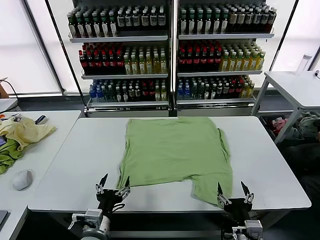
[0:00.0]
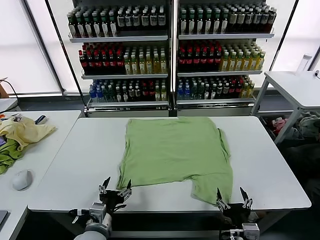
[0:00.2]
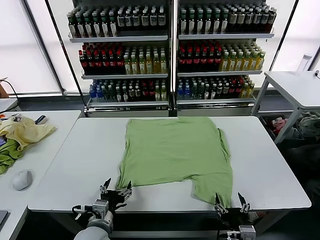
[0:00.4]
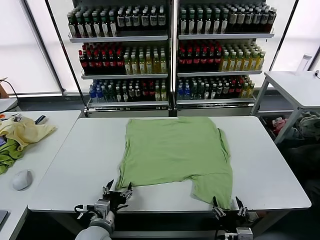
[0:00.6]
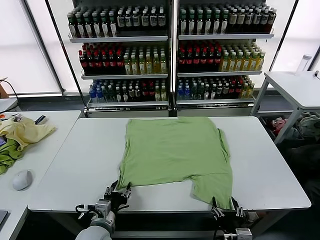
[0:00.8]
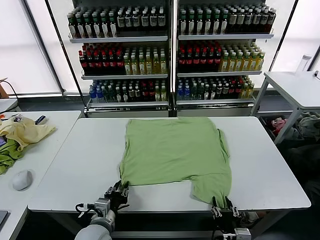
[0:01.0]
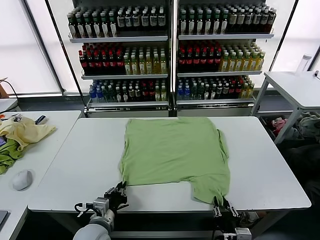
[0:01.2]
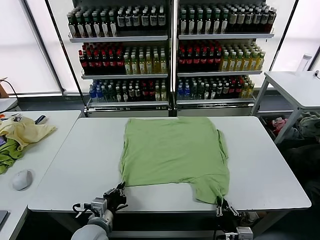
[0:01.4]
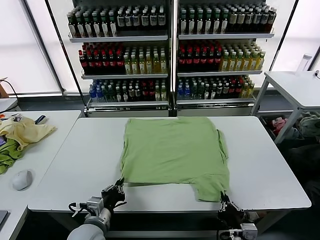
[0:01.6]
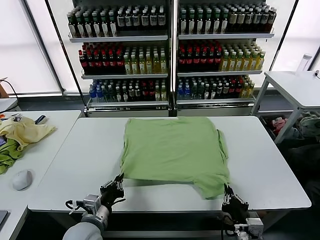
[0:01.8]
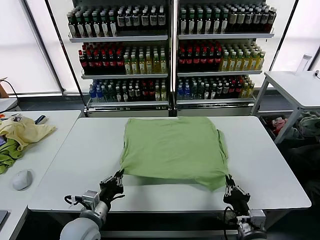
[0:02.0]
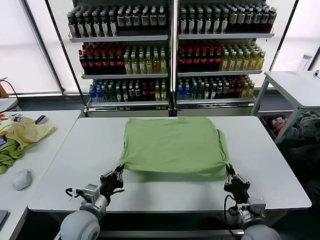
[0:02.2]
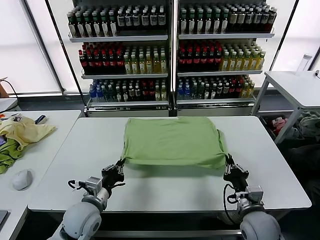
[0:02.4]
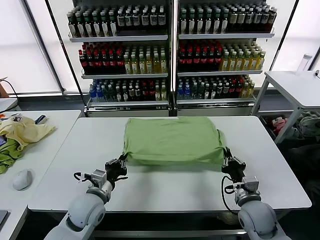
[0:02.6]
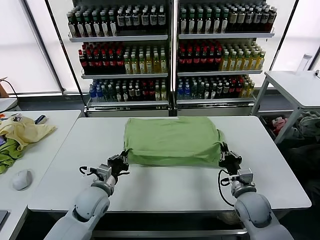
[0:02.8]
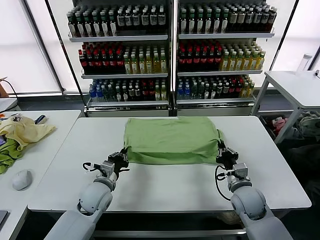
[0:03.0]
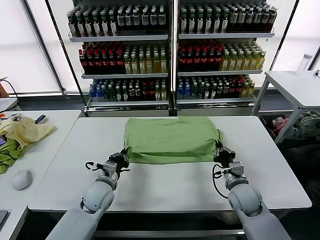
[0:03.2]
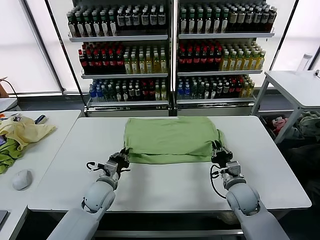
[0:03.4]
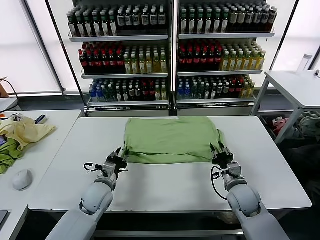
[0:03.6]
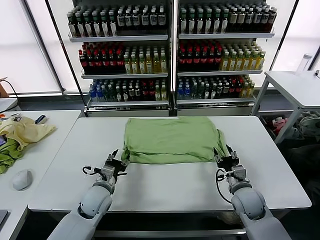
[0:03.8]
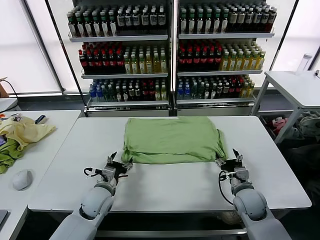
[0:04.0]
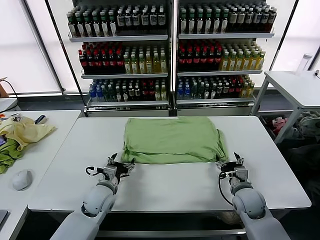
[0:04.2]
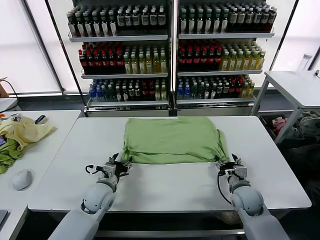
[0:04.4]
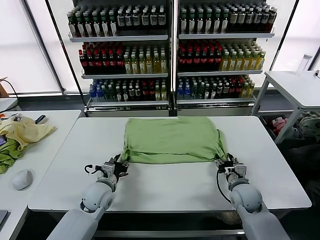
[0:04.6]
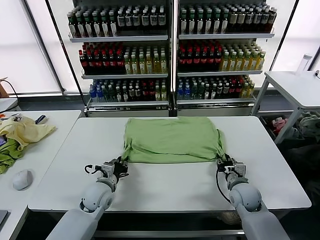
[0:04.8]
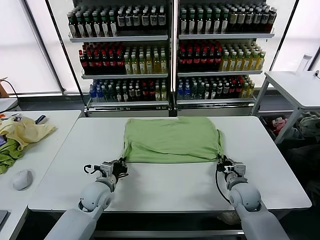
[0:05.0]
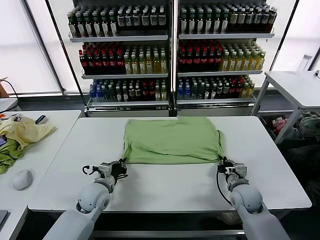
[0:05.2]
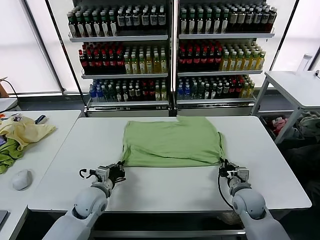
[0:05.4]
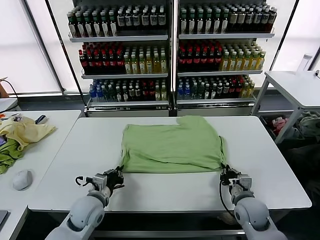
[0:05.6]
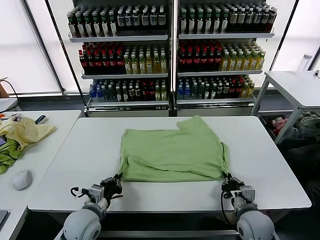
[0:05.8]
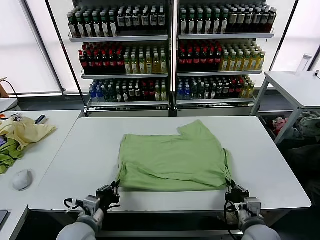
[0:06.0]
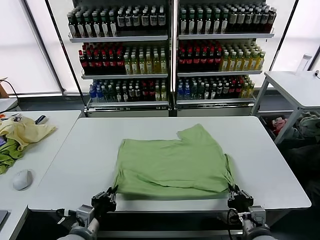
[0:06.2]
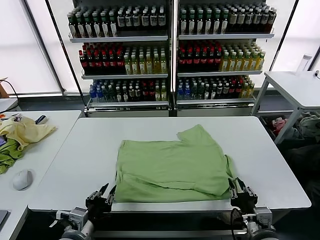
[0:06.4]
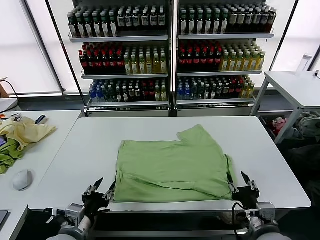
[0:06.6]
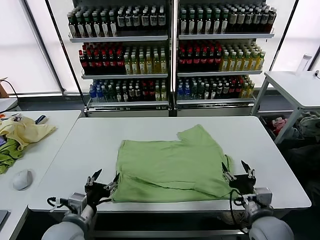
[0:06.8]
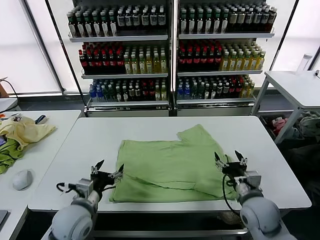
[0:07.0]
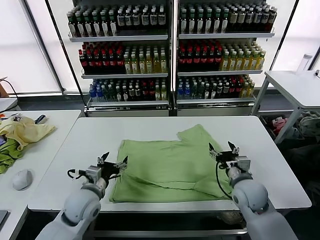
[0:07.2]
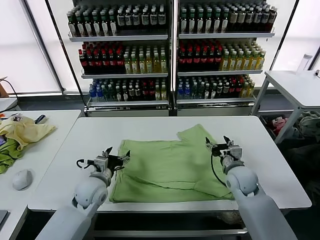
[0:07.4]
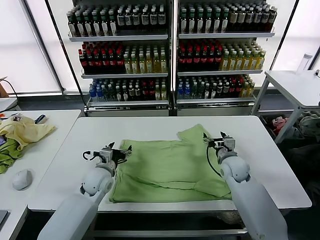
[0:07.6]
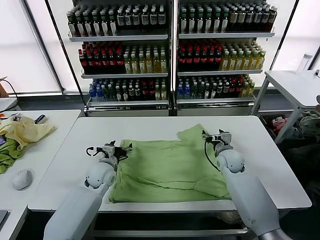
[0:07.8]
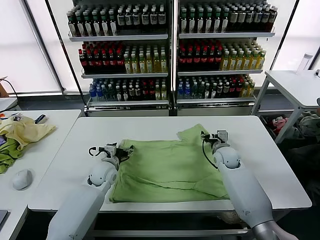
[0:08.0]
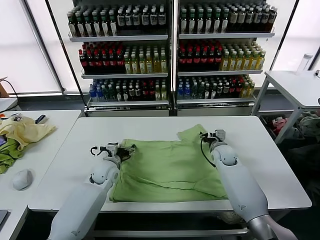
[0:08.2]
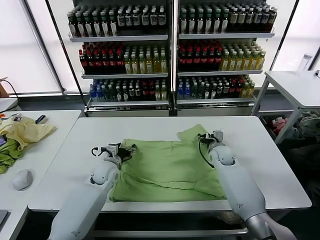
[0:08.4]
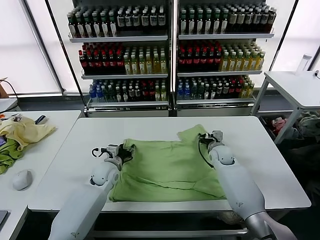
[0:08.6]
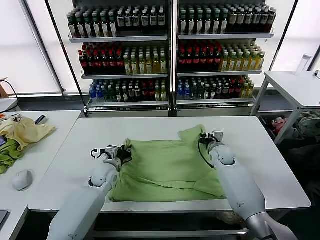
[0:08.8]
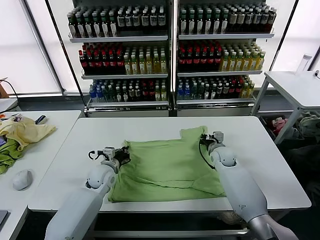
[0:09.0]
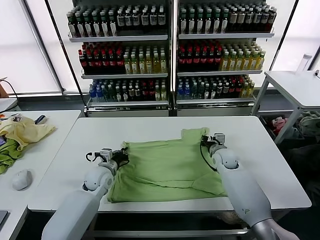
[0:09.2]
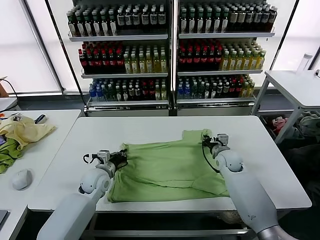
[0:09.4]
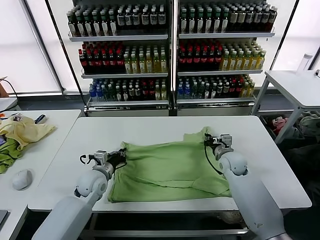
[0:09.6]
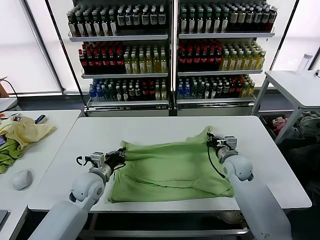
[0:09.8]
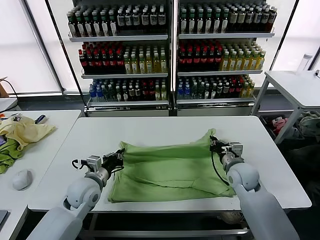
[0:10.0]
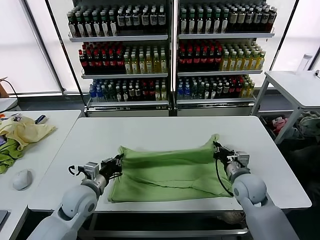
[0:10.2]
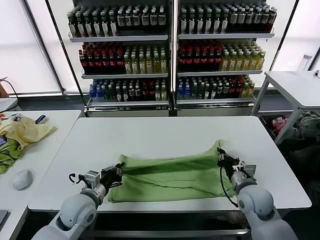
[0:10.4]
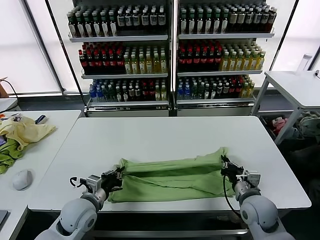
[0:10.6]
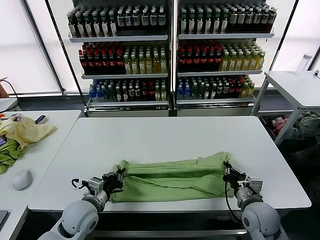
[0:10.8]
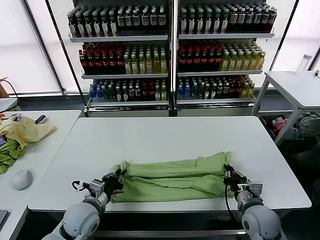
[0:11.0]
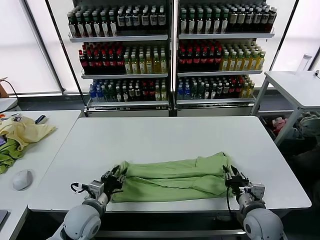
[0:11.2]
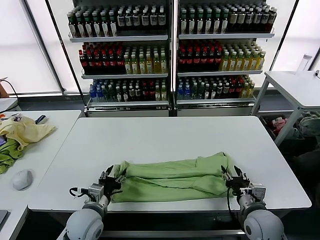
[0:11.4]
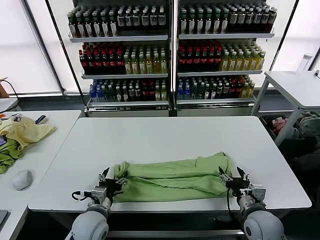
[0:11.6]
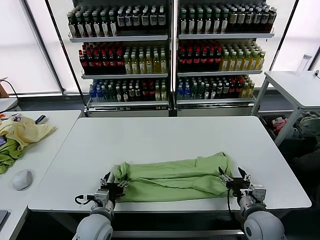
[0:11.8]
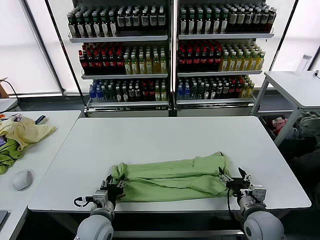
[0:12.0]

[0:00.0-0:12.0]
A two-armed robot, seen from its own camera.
Task of the whole recording: fold and organize the clothes.
Step, 0:00.0 to 0:01.4: use both grippers simultaneously to clamp the lower edge of the clothing fabric.
Step, 0:01.8 to 0:03.6: use both grippers to drag the lower edge of the fabric forward and fold it over the upper edge.
Step, 0:03.8 to 0:06.4: Drag the clothes downward with both gripper.
Step, 0:06.8 to 0:09.0: use both grippers simultaneously to clamp the upper edge of the clothing fabric.
Step, 0:09.2 to 0:11.4: use both grippers to drag the upper edge of the fabric backward and fold it over the lower edge.
0:01.6 to 0:03.0: Both grippers move forward, about 15 cm.
0:03.0 to 0:04.4: The left gripper opens its fingers; the right gripper opens its fingers.
0:04.4 to 0:06.0: The two grippers go some 15 cm backward. The right gripper closes up, while the left gripper closes.
0:06.0 to 0:07.6: The two grippers go about 25 cm forward. The right gripper opens; the left gripper opens.
0:07.6 to 0:09.0: The left gripper closes its fingers. Meanwhile the right gripper goes approximately 5 cm forward, and closes up.
0:09.0 to 0:10.4: The two grippers go approximately 15 cm backward.
0:10.4 to 0:12.0: The right gripper is displaced backward by approximately 5 cm, and opens; the left gripper travels to the right by some 5 cm, and opens up.

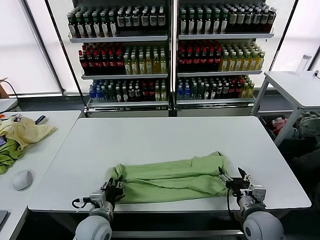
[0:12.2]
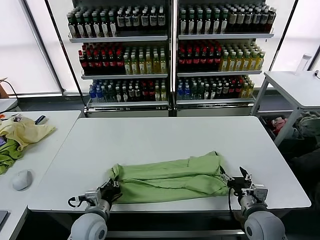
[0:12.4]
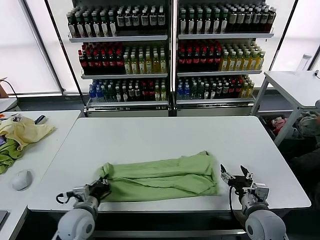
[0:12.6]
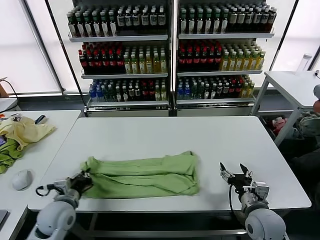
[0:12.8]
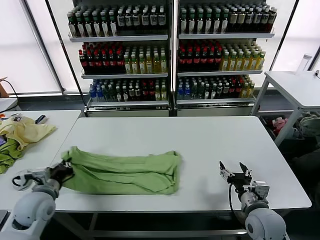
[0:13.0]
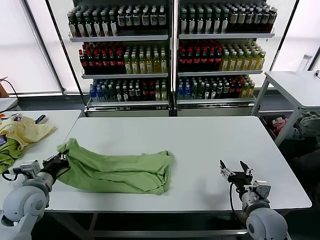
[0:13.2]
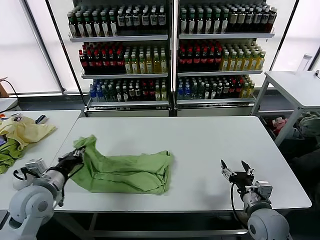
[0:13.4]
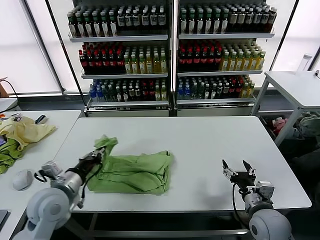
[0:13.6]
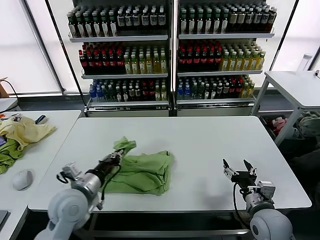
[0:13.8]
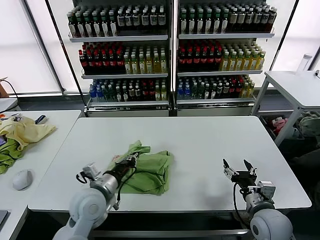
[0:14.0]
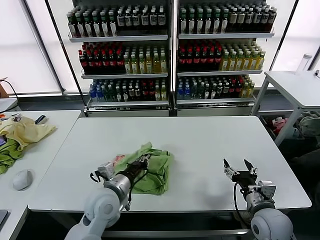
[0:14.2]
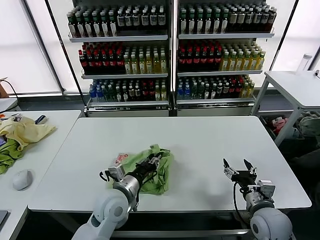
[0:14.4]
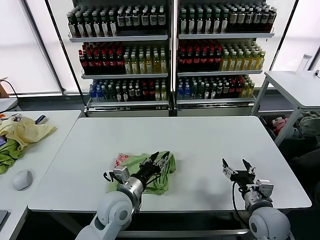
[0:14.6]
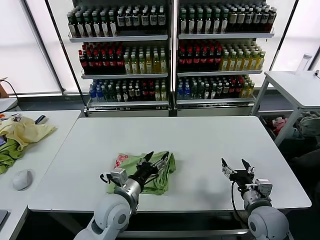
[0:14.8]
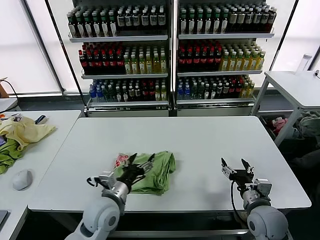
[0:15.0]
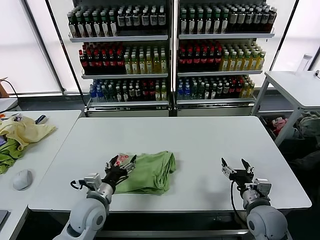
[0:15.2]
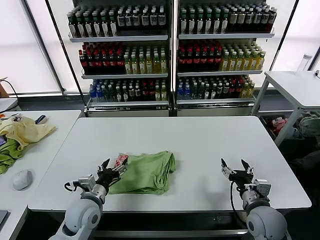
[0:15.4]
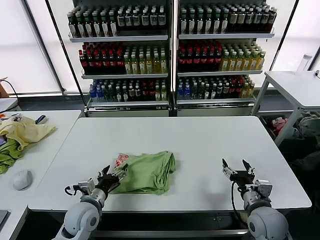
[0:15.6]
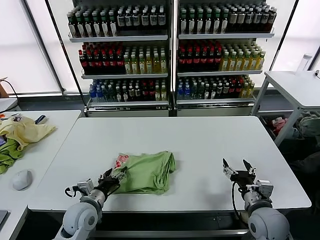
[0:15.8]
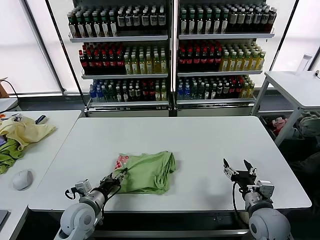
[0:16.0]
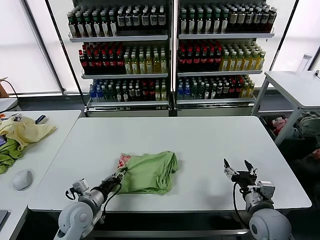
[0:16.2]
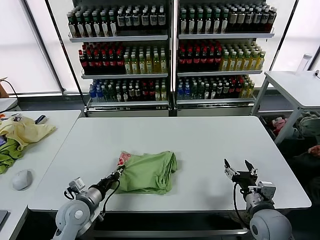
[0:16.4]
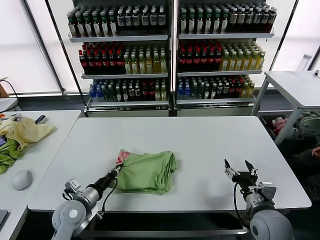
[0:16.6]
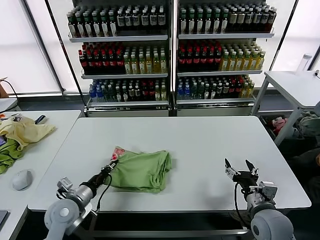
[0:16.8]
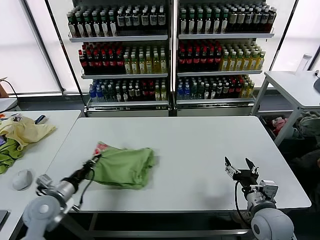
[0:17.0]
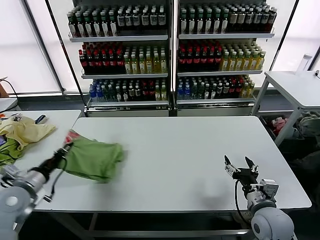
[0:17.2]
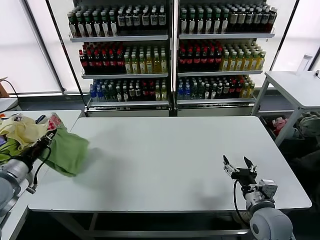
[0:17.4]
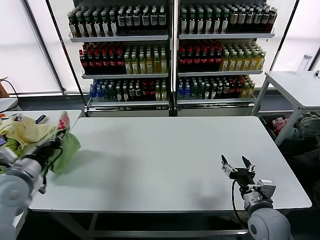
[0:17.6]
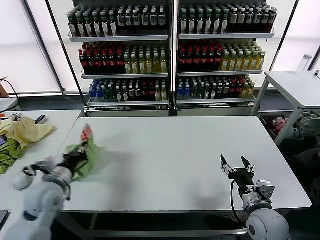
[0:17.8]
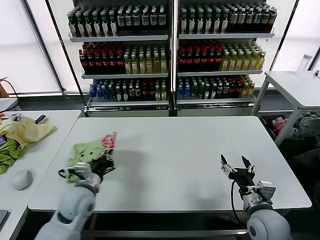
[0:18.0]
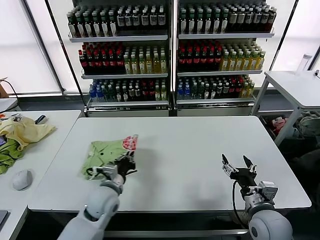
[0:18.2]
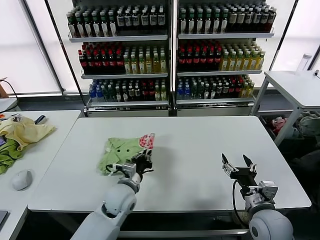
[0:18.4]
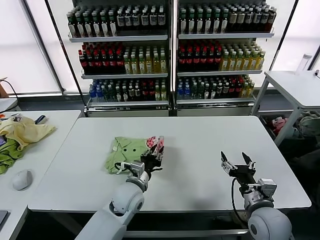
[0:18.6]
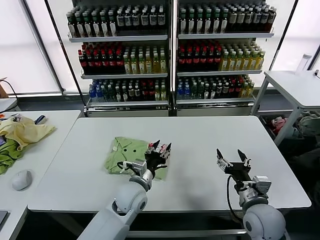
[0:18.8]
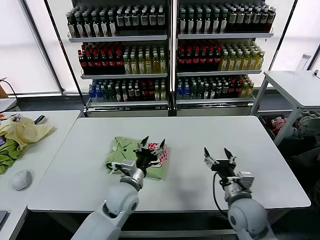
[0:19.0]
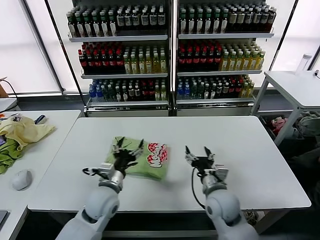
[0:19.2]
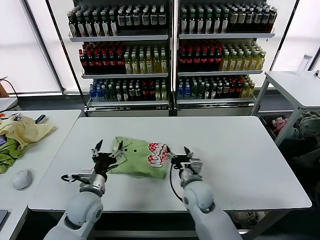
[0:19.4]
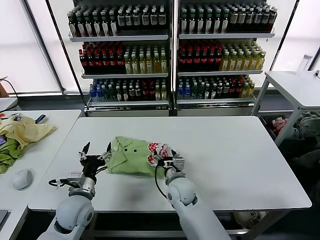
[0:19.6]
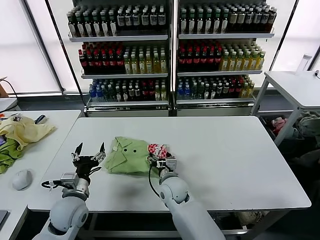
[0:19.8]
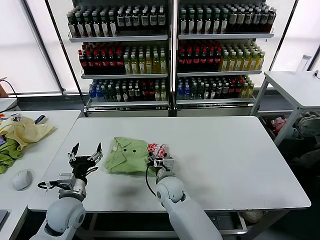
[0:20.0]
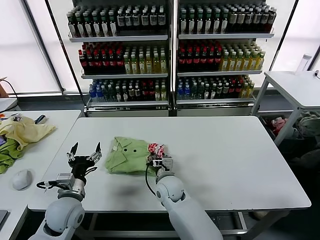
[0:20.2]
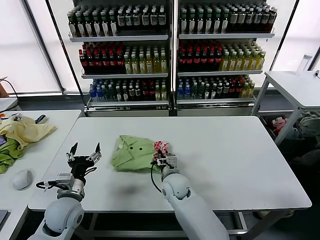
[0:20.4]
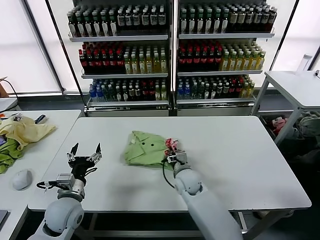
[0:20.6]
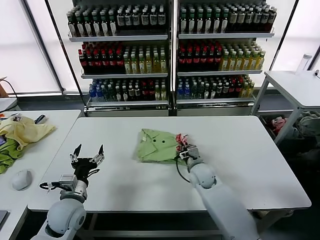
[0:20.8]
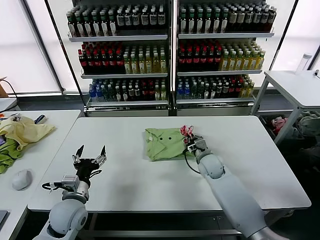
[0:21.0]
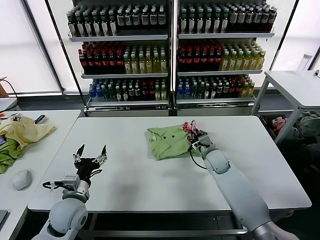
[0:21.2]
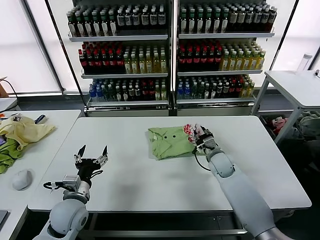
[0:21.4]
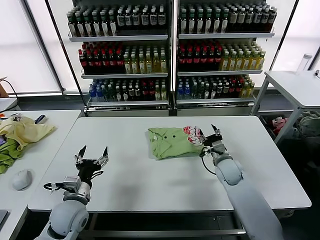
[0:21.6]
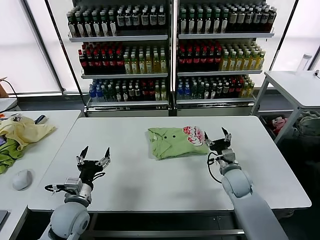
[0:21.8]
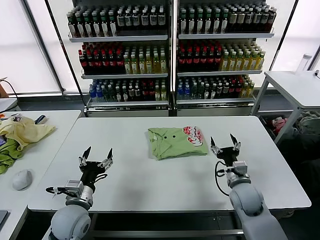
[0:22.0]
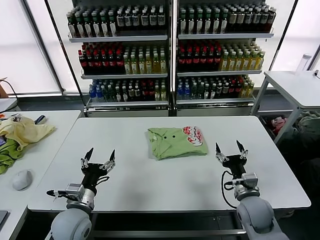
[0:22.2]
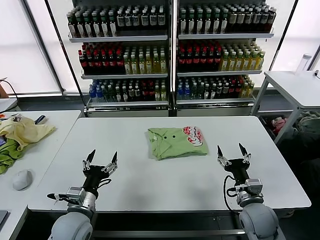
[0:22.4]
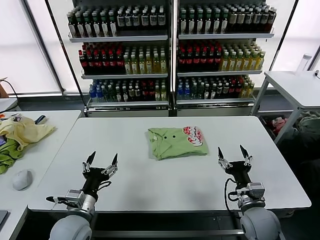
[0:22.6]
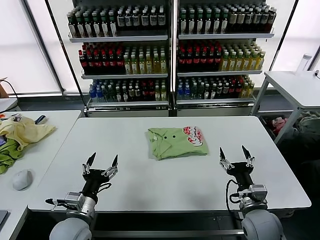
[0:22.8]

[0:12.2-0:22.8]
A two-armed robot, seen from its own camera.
Task of the whole recording: fold and organize the clothes.
Step, 0:12.6 to 0:14.6: use the left gripper to drag the left edge of the fabric to the left and folds it over the right edge.
Step, 0:14.8 to 0:18.6: Flip the folded clothes over with left gripper.
Step, 0:19.0 to 0:21.4: Drag the clothes to the center of the table.
0:12.2 to 0:13.8: The left gripper heads upward, covering approximately 10 cm, and goes to the left and returns, about 15 cm each way.
0:13.8 to 0:15.2: The left gripper goes about 5 cm downward, and opens up.
0:15.2 to 0:16.8: The left gripper is displaced to the left by some 10 cm, and closes its fingers.
0:16.8 to 0:18.2: The left gripper shifts about 10 cm to the right.
0:18.2 to 0:19.8: The left gripper moves to the left, some 5 cm, and opens its fingers. The right gripper moves to the left and forward, approximately 30 cm.
0:19.8 to 0:21.2: The right gripper is displaced to the right and forward by roughly 20 cm, and closes.
0:21.2 to 0:22.8: The left gripper goes approximately 5 cm backward, while the right gripper shifts roughly 25 cm backward, and opens its fingers.
